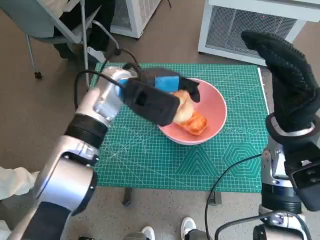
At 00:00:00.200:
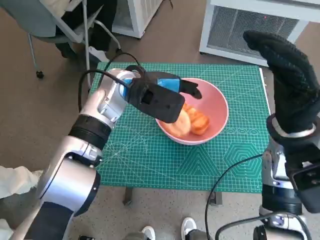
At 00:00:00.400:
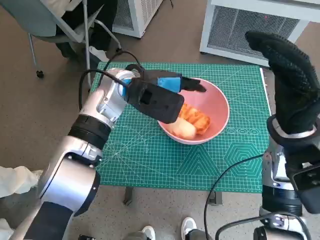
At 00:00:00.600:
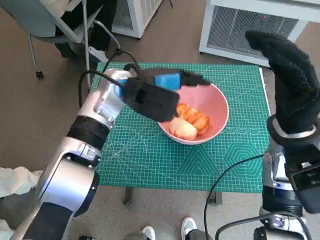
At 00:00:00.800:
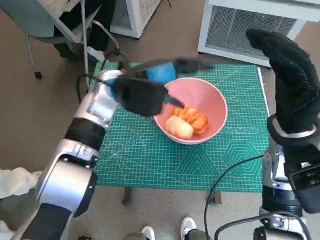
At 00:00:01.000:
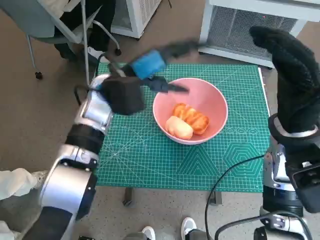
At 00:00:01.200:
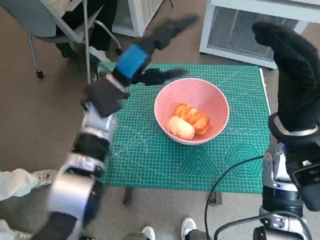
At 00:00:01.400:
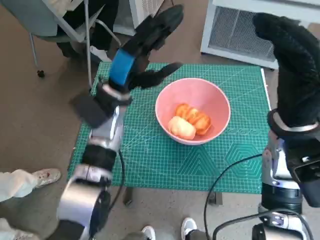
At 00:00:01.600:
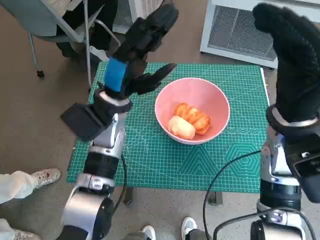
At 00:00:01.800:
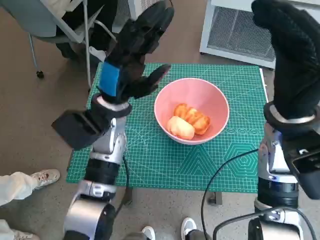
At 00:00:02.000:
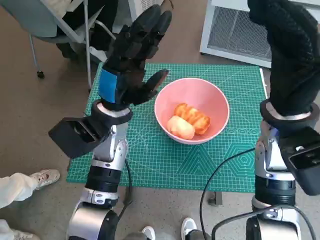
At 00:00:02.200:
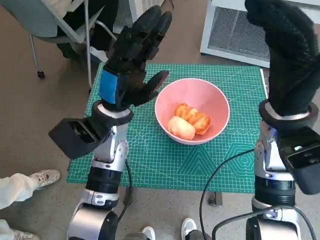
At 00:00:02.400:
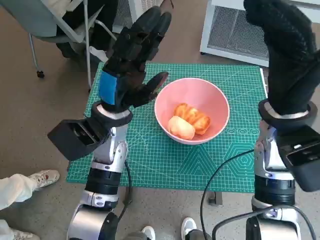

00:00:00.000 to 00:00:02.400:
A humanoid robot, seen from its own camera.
Task of the whole recording: Push the bowl to the center of the table and put the bread into the bowl.
00:00:01.200 to 00:00:02.400: The left hand shifts by roughly 5 cm.

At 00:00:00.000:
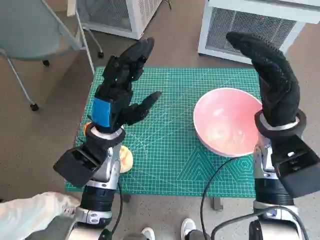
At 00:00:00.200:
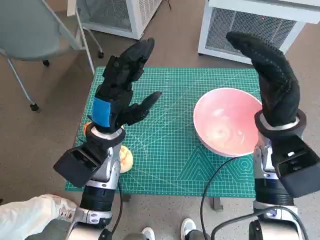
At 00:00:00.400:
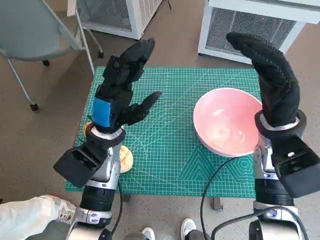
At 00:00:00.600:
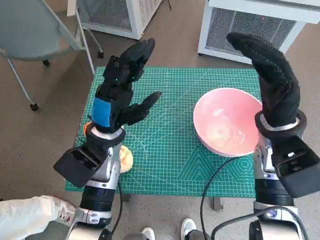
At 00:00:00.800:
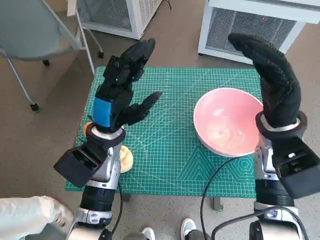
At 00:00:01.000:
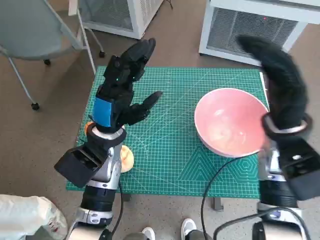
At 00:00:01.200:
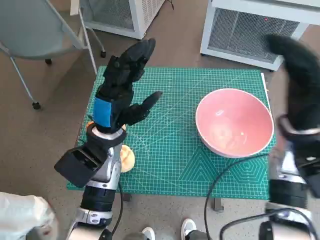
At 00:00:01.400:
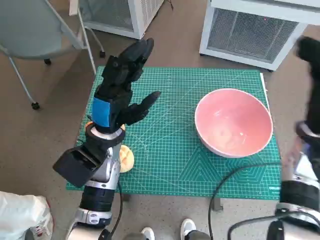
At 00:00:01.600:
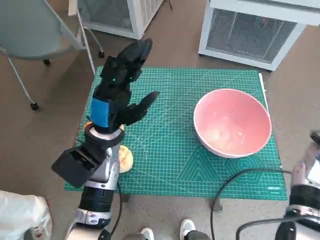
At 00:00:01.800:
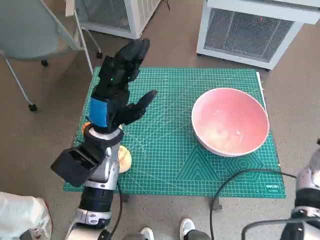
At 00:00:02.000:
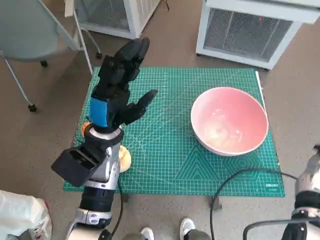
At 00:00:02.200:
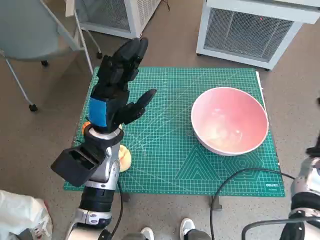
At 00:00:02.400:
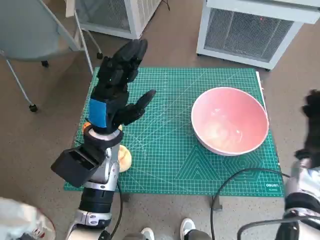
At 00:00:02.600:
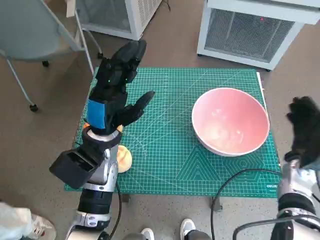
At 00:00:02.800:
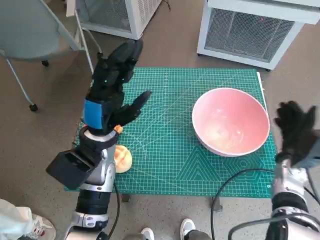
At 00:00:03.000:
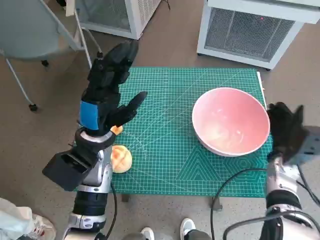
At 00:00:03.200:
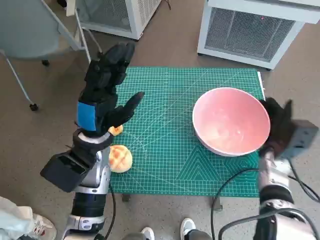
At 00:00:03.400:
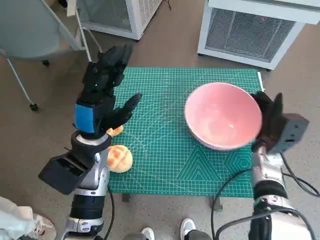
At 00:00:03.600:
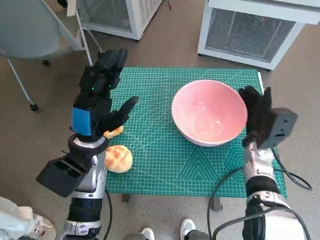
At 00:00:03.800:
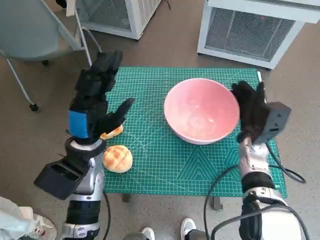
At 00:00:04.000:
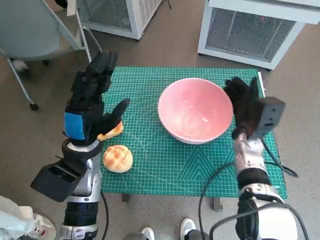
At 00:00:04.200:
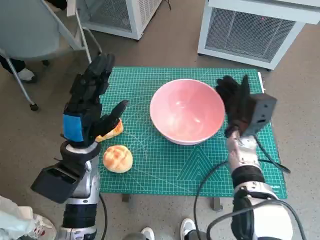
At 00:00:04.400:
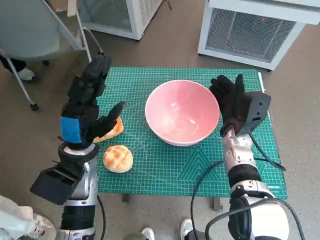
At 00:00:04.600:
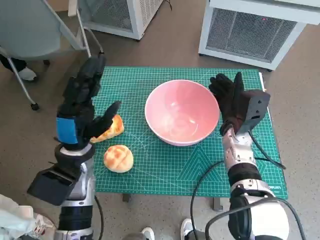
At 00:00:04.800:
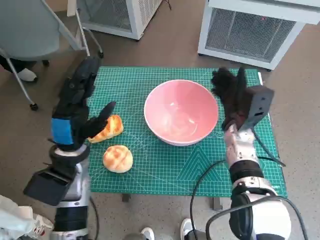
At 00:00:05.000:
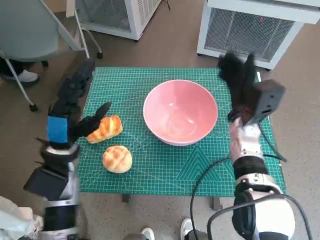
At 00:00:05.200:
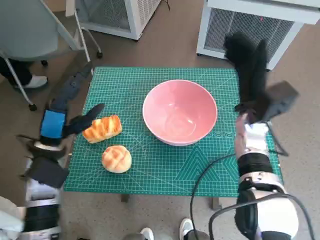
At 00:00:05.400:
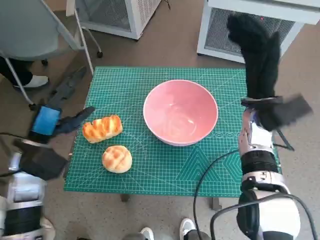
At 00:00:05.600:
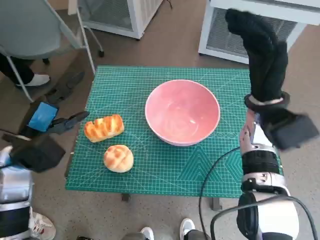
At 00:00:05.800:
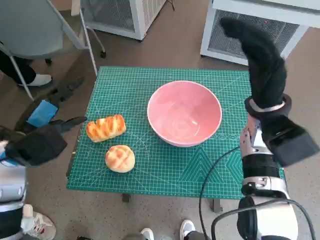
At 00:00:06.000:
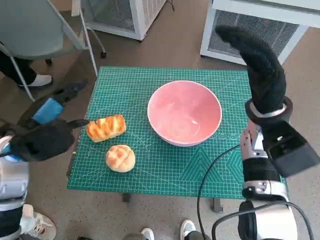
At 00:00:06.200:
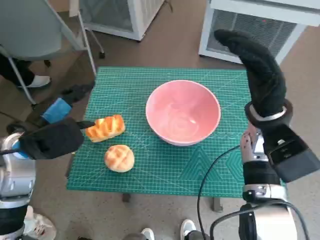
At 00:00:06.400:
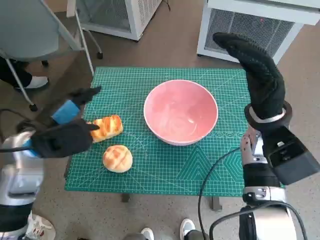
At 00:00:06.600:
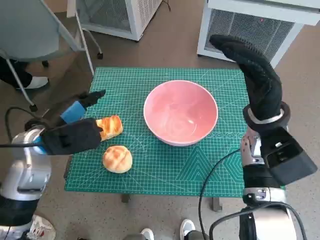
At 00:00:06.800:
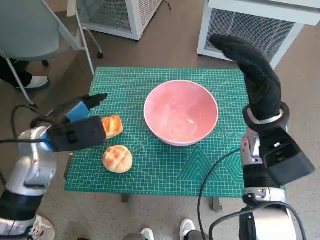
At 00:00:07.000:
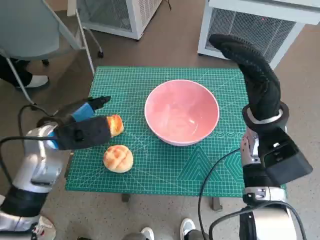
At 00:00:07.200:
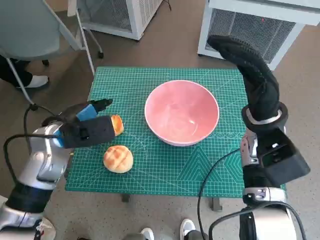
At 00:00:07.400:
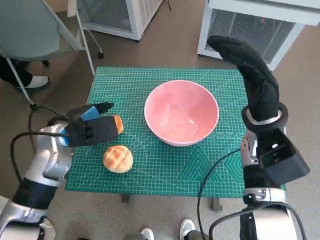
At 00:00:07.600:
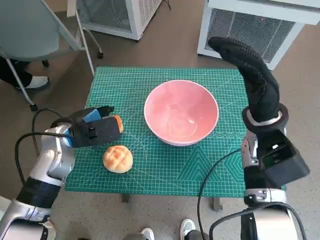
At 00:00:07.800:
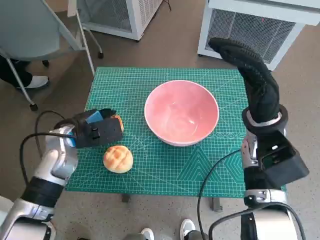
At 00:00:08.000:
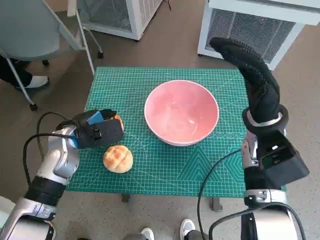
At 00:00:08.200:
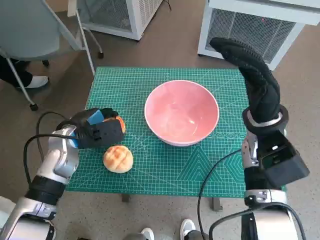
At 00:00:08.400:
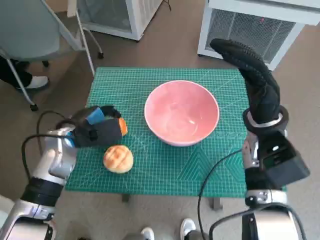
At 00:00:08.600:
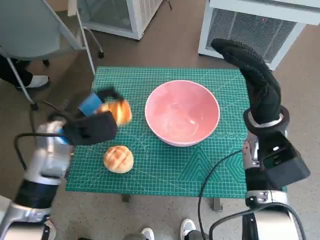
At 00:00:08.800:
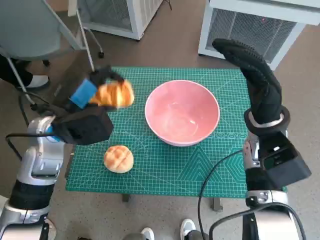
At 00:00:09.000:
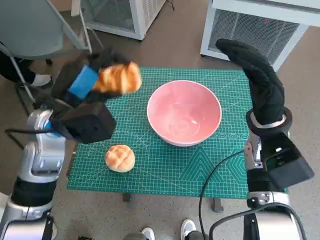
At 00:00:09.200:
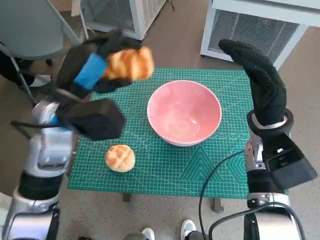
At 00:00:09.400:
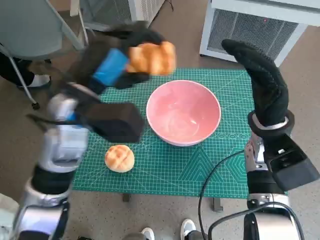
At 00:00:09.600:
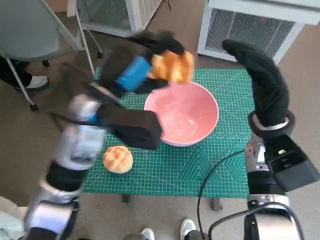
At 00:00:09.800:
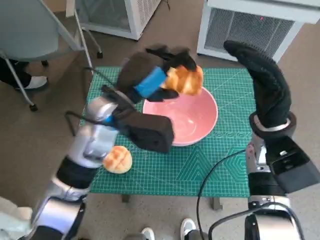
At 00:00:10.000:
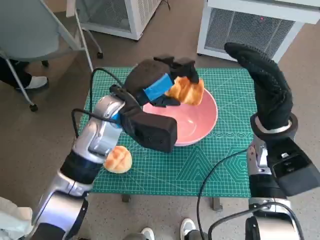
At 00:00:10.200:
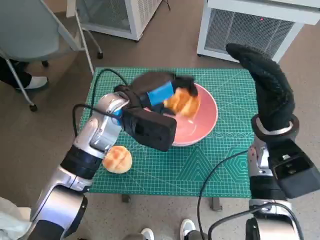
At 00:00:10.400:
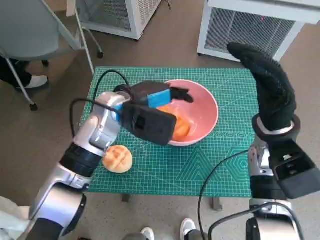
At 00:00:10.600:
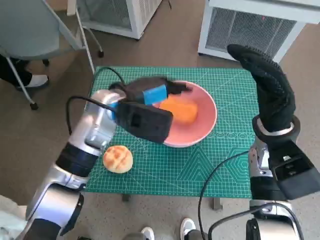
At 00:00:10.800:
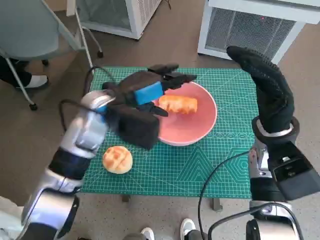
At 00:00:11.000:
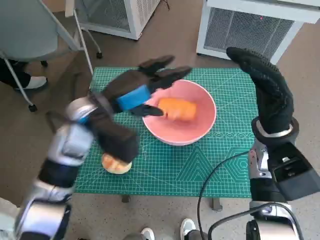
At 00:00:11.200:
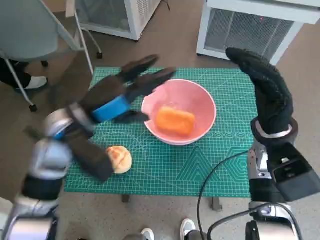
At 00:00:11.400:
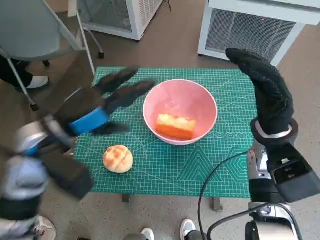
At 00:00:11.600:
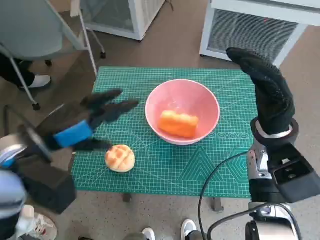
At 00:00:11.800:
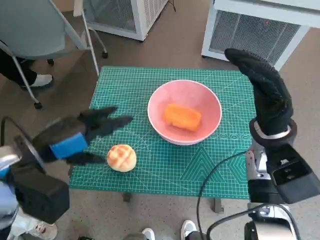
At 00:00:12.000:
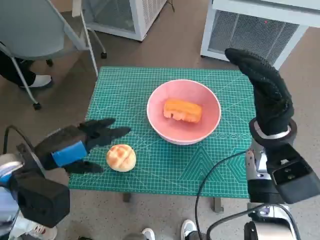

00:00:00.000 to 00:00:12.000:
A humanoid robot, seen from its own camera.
Task of the whole recording: Push the bowl to the center of the table and put the bread into the bowl.
Step, 00:00:00.000 to 00:00:04.800: Move the pink bowl to the center of table with right hand.
Step, 00:00:05.000 to 00:00:08.200: Grasp the long bread with left hand.
Step, 00:00:08.400 to 00:00:10.600: Place the long bread in pink bowl with left hand.
00:00:01.600 to 00:00:03.000: The right hand travels downward by roughly 10 cm.
00:00:03.000 to 00:00:04.400: The right hand heads to the left, covering approximately 10 cm.
00:00:04.400 to 00:00:06.000: The right hand goes some 10 cm upward; the left hand goes about 10 cm to the left and upward.
00:00:06.000 to 00:00:07.600: The left hand moves forward, approximately 5 cm.
00:00:07.600 to 00:00:09.000: The left hand moves upward, about 5 cm.
00:00:09.000 to 00:00:10.400: The left hand goes some 10 cm to the right.
00:00:10.400 to 00:00:12.000: The left hand is displaced to the left and backward by approximately 20 cm.

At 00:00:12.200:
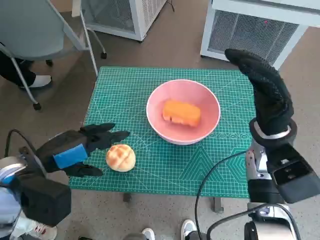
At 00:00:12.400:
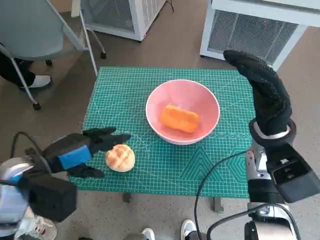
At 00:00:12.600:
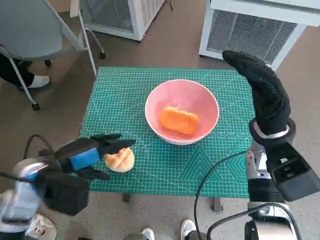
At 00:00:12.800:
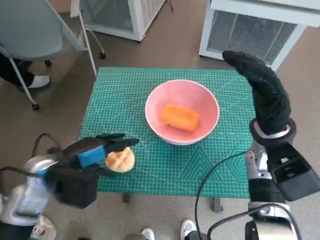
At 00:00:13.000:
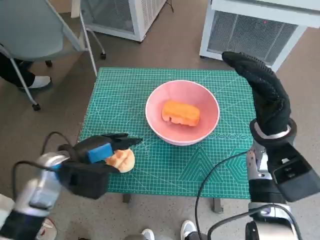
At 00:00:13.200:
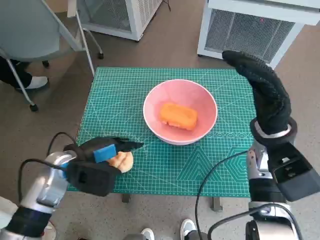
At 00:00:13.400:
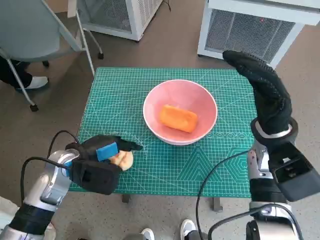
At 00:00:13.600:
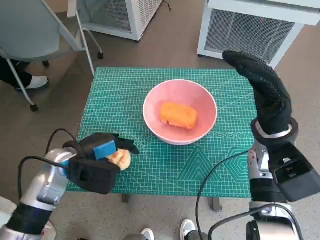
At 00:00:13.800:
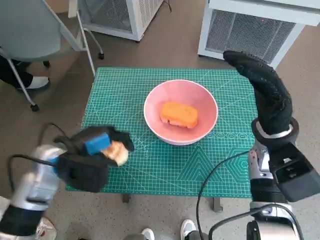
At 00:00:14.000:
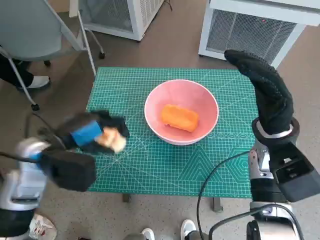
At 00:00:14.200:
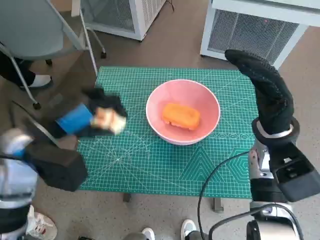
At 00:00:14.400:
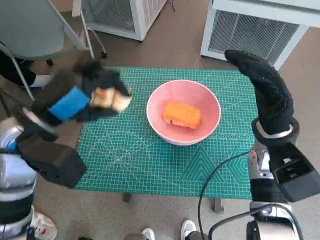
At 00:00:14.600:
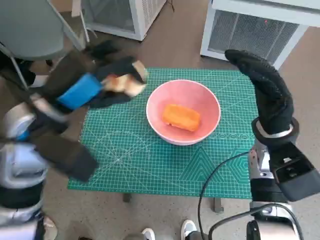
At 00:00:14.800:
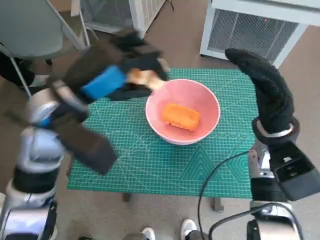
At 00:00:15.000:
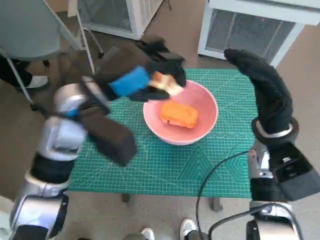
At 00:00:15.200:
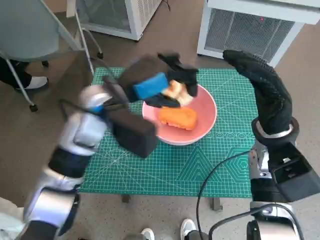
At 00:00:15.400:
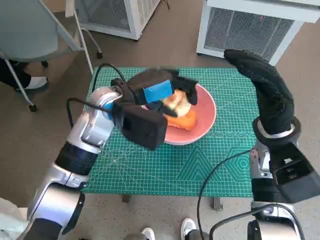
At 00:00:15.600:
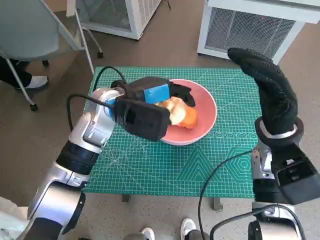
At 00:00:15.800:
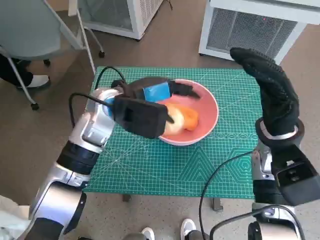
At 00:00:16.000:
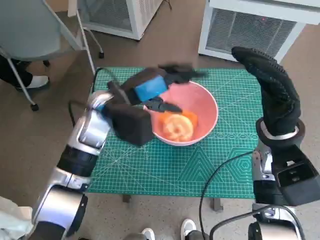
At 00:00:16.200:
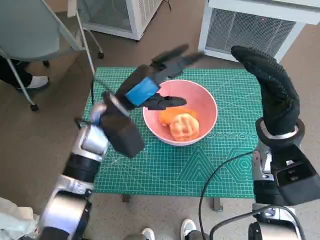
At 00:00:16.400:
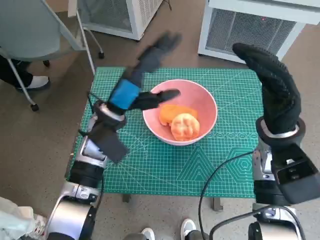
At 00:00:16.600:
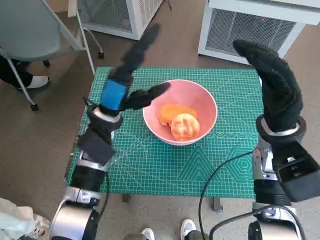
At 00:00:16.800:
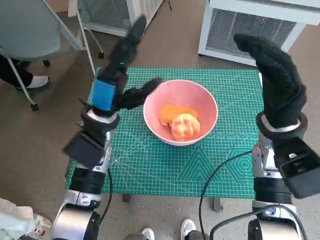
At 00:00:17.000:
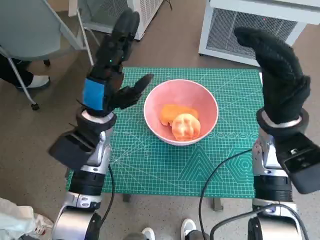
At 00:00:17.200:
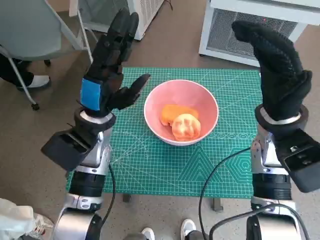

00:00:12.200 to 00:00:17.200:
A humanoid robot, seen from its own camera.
Task of the whole recording: Push the bowl to the center of the table and put the bread into the bowl.
Step, 00:00:12.200 to 00:00:13.600: Grasp the round bread with left hand.
Step, 00:00:13.800 to 00:00:15.800: Place the round bread in pink bowl with left hand.
00:00:12.200 to 00:00:13.800: The left hand travels downward by roughly 5 cm.
00:00:13.800 to 00:00:15.600: The left hand shifts roughly 15 cm to the right, forward and upward.
00:00:15.600 to 00:00:17.200: The left hand shifts by some 5 cm.
